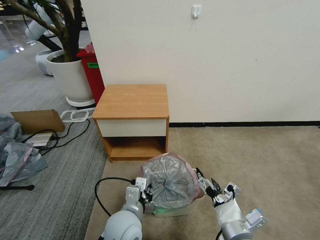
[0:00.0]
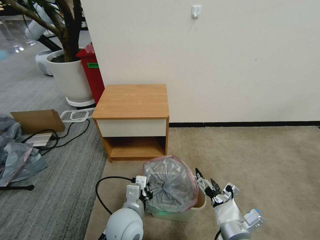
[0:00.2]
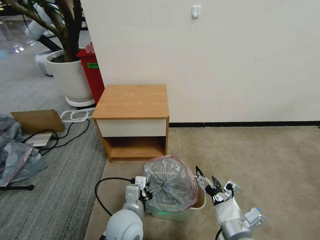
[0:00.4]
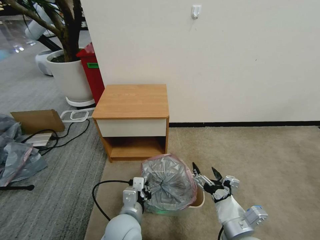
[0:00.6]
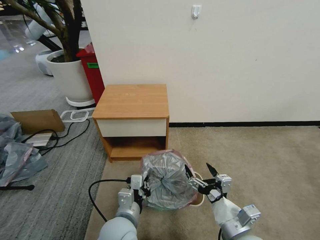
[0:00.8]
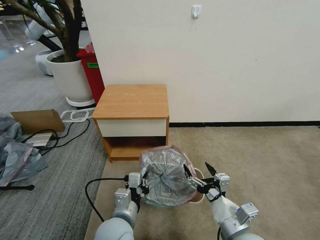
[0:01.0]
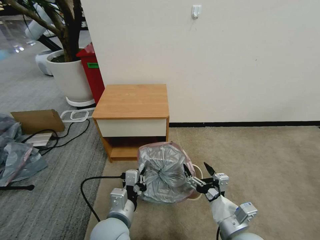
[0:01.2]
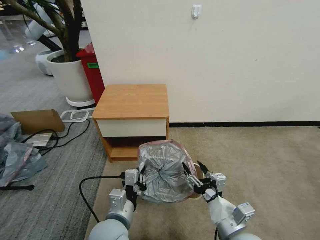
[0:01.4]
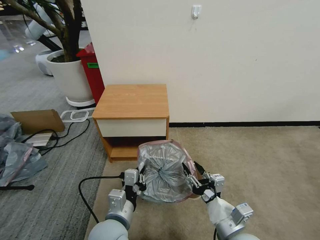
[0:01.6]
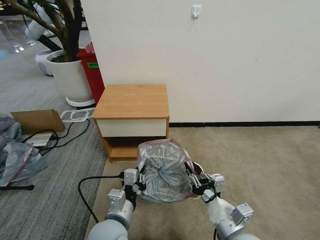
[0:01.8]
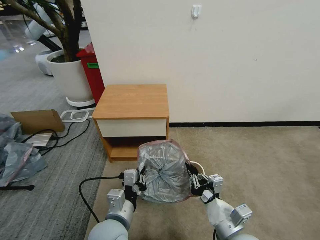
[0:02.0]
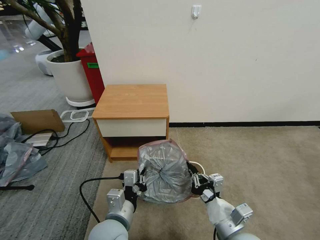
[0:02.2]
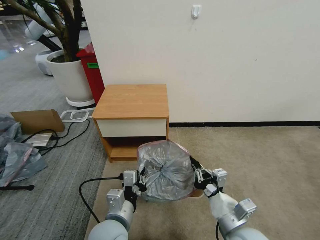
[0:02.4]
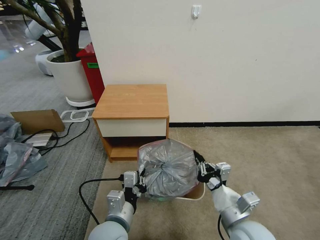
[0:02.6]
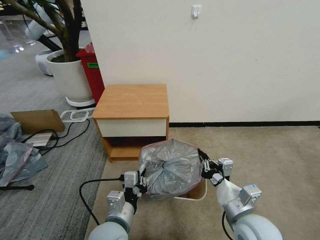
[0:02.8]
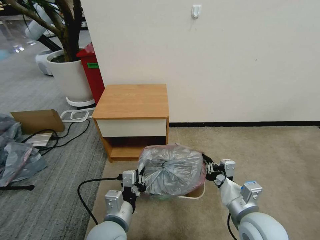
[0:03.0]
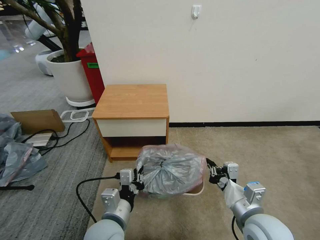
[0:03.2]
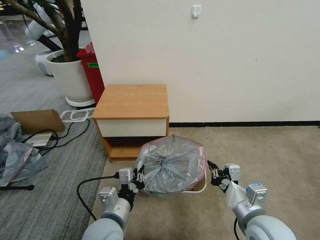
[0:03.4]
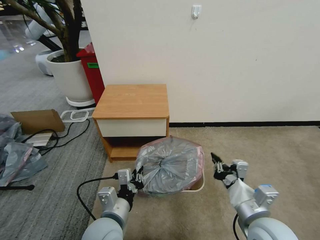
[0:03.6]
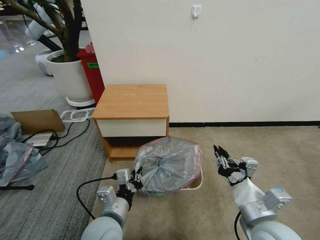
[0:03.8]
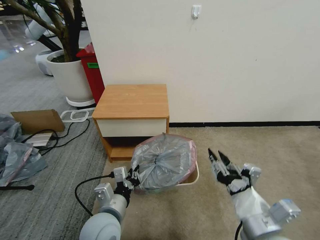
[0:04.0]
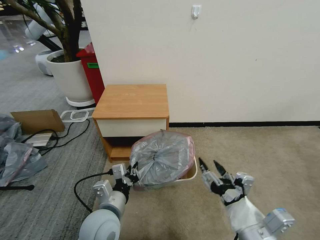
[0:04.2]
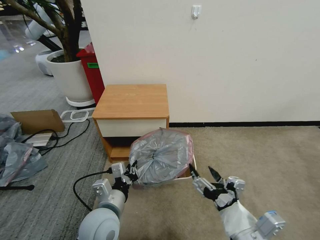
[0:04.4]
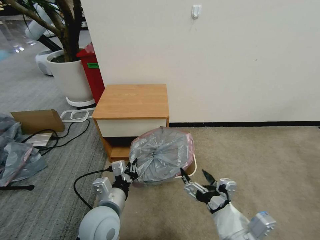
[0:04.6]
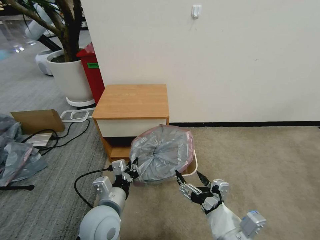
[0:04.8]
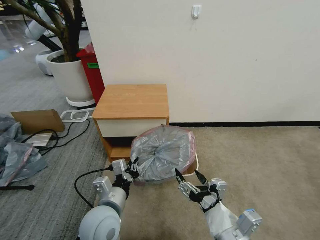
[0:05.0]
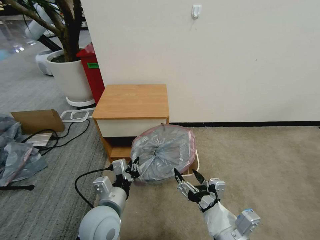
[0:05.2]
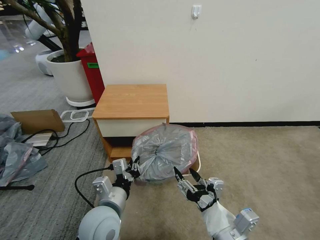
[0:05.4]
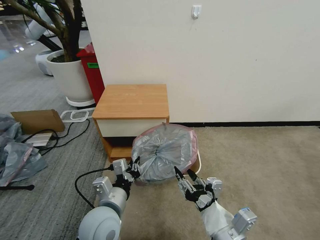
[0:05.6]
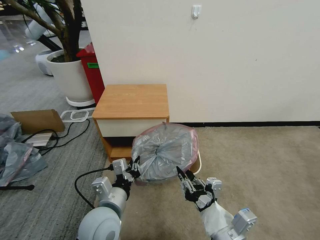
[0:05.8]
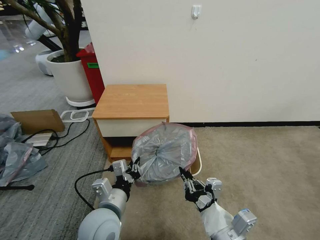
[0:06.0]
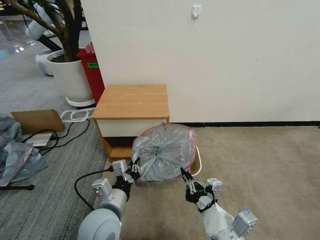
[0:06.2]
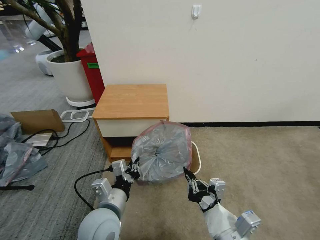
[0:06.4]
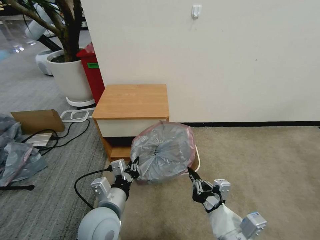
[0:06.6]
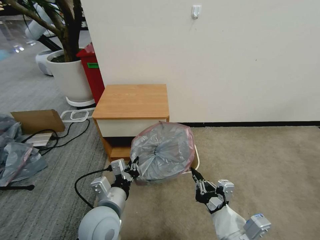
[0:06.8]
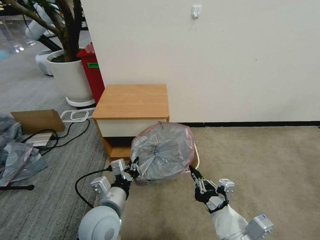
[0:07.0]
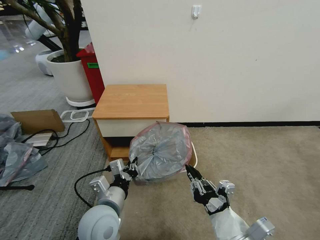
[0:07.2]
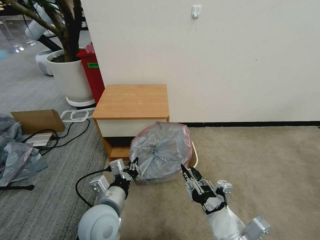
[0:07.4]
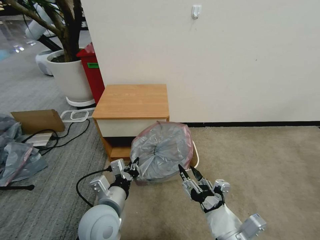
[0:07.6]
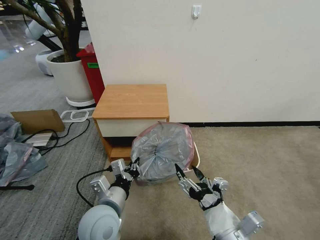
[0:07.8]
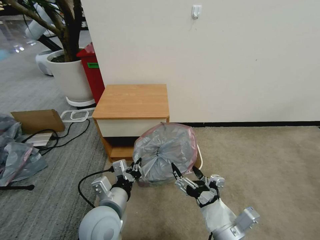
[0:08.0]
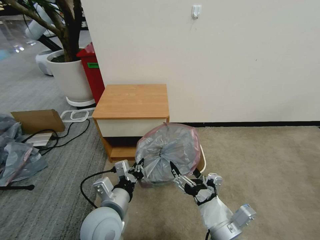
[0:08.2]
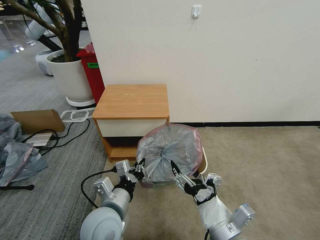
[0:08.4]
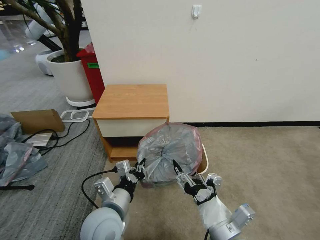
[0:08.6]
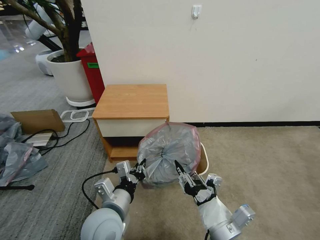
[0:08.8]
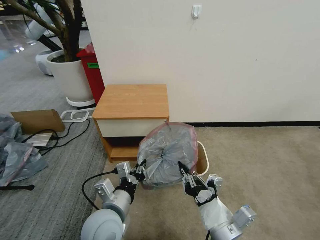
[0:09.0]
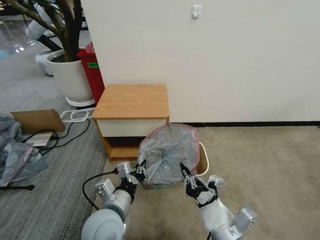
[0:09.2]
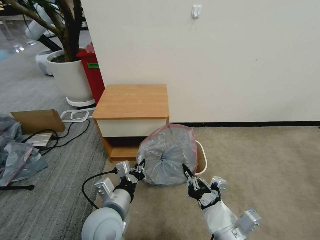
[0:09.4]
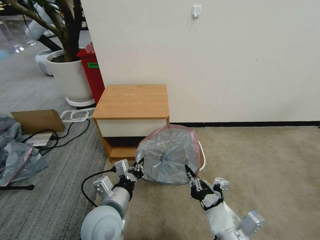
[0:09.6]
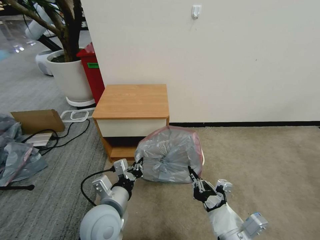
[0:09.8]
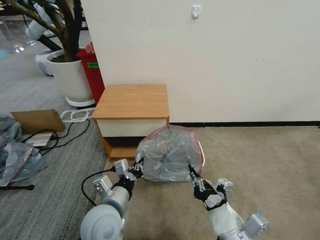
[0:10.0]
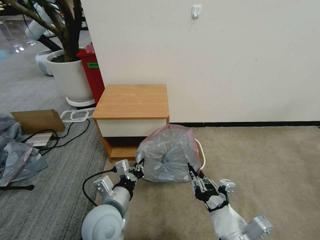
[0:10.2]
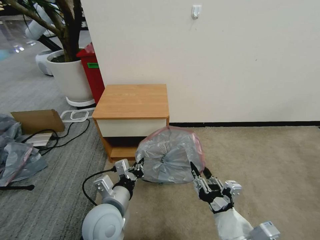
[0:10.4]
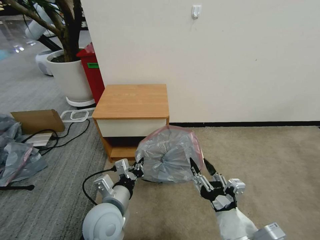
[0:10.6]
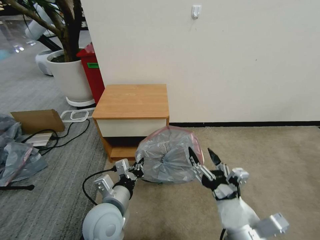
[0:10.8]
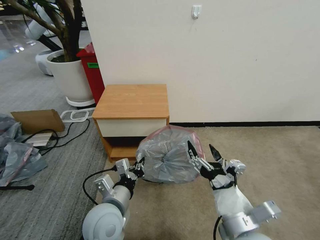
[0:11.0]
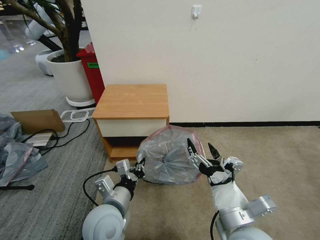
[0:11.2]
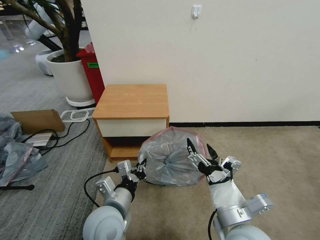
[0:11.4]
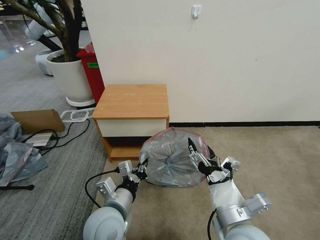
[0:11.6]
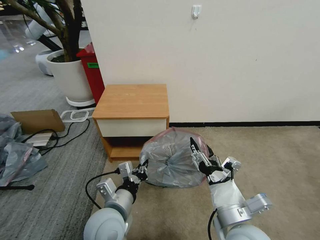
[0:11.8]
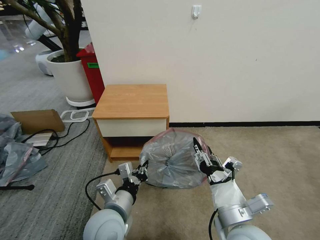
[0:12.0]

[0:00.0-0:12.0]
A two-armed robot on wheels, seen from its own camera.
Task of the whole recording: Pick up the garbage bag from the table and place it over the trash can.
0:00.0 to 0:01.6: The right gripper closes its fingers.
0:01.6 to 0:03.0: The right gripper changes place by about 5 cm, and closes up.
0:03.0 to 0:04.4: The right gripper goes about 10 cm backward, and opens its fingers.
0:04.4 to 0:06.0: The right gripper closes up.
0:06.0 to 0:07.6: The right gripper opens its fingers.
0:07.6 to 0:09.0: The right gripper closes.
0:09.0 to 0:10.4: The grippers make only small movements.
0:10.4 to 0:12.0: The right gripper travels forward by about 5 cm, and opens, then closes again.

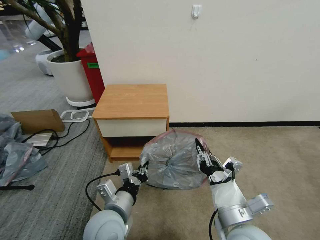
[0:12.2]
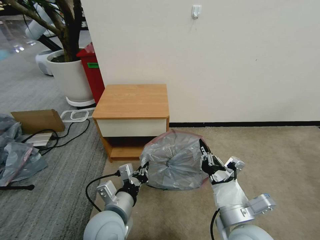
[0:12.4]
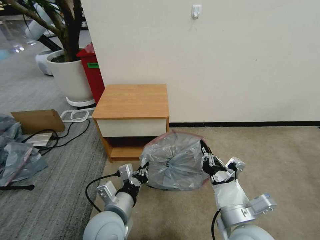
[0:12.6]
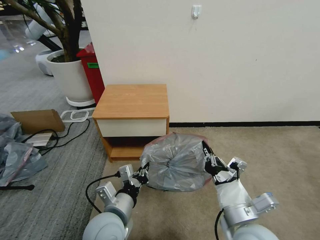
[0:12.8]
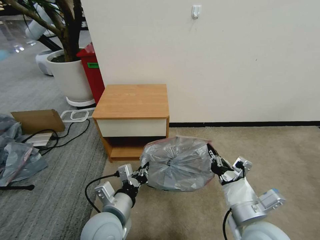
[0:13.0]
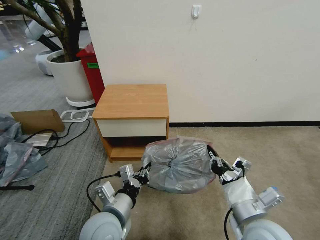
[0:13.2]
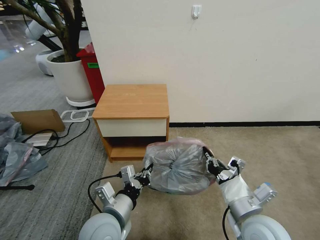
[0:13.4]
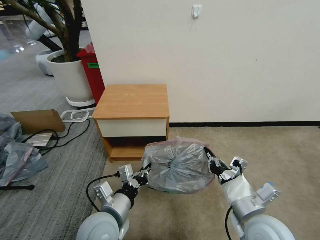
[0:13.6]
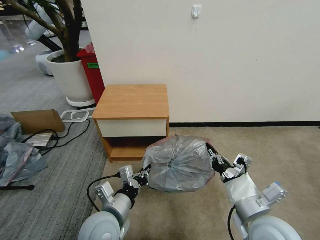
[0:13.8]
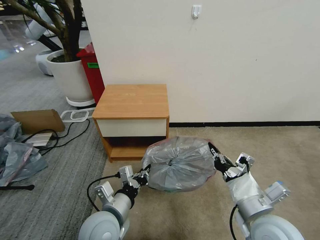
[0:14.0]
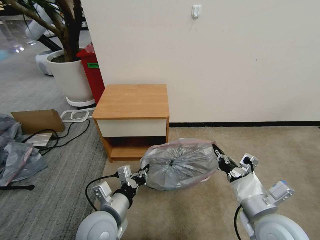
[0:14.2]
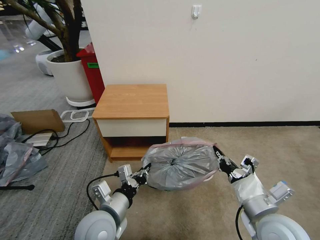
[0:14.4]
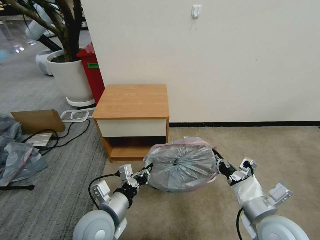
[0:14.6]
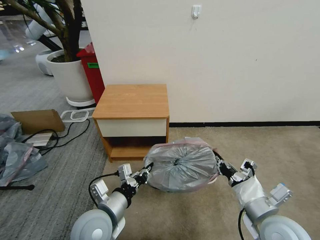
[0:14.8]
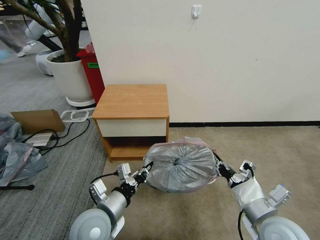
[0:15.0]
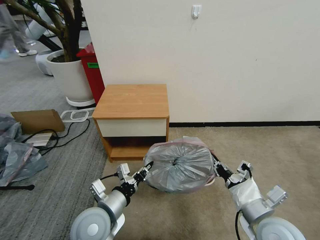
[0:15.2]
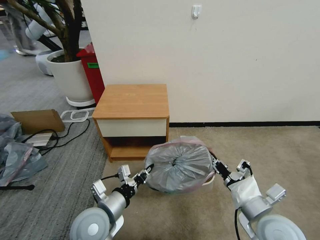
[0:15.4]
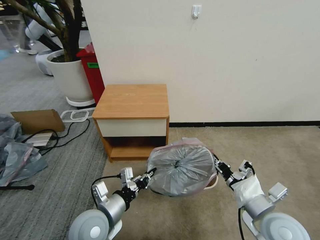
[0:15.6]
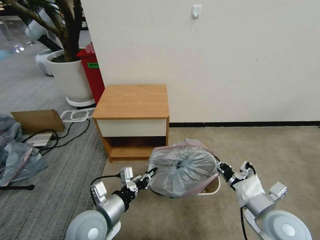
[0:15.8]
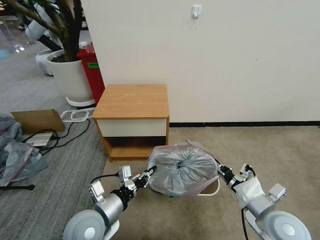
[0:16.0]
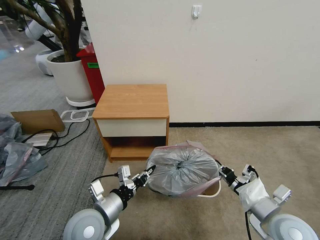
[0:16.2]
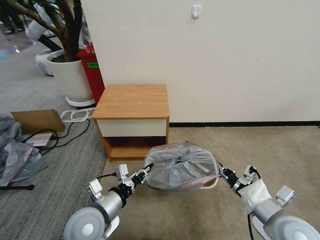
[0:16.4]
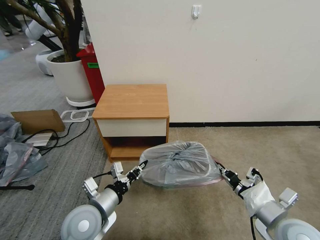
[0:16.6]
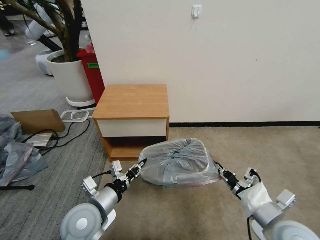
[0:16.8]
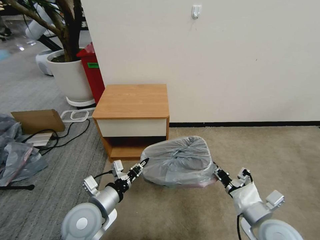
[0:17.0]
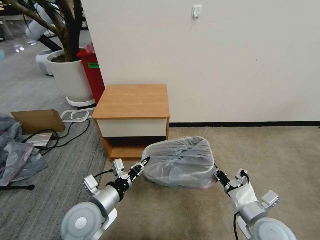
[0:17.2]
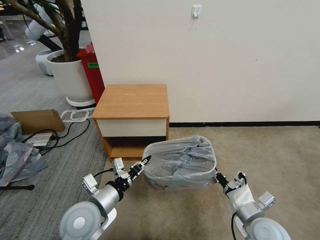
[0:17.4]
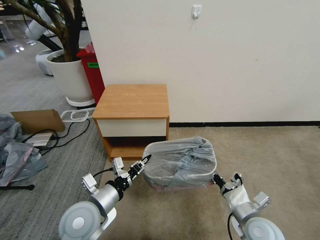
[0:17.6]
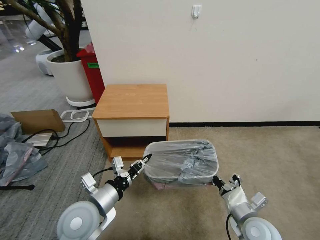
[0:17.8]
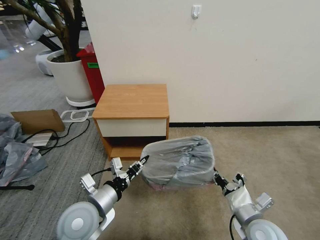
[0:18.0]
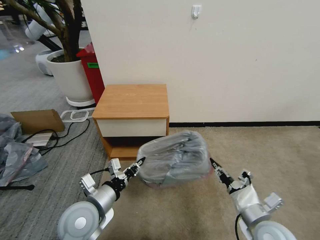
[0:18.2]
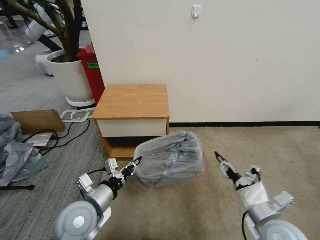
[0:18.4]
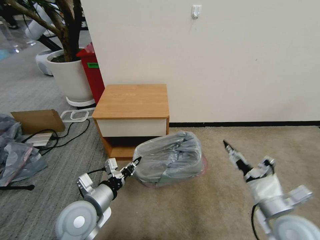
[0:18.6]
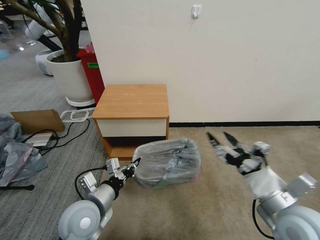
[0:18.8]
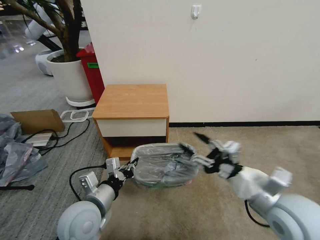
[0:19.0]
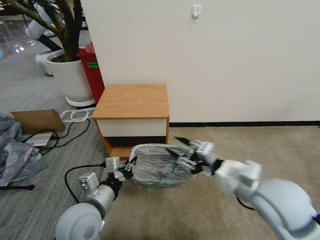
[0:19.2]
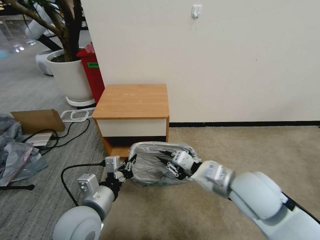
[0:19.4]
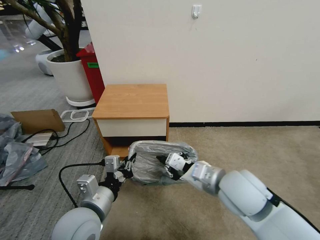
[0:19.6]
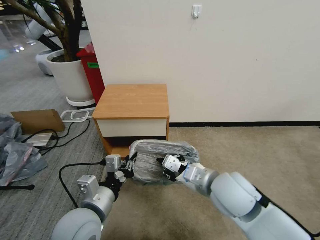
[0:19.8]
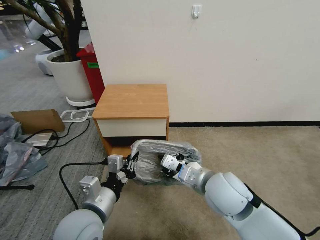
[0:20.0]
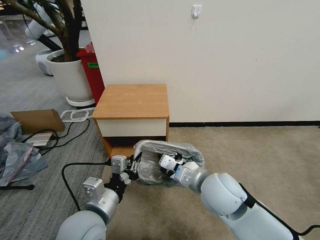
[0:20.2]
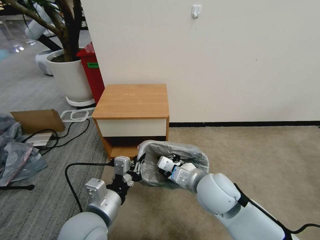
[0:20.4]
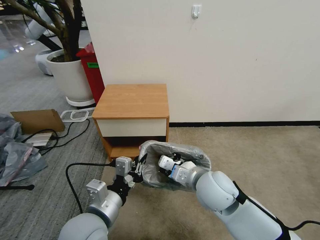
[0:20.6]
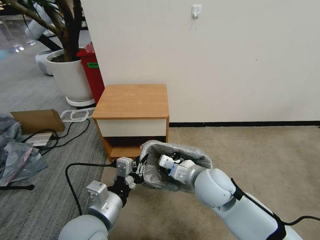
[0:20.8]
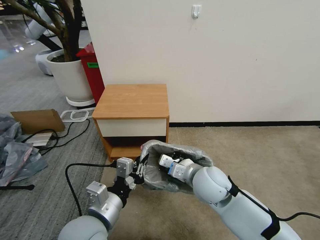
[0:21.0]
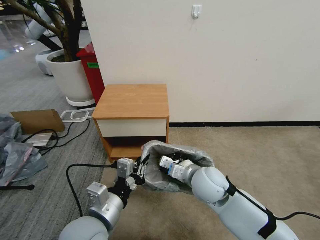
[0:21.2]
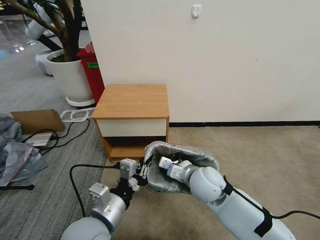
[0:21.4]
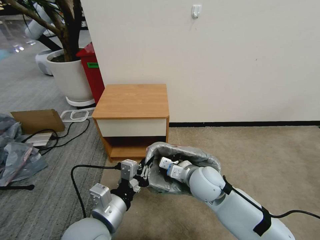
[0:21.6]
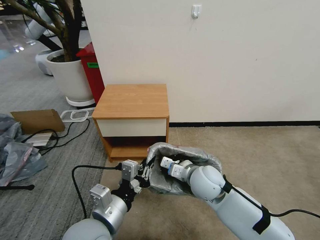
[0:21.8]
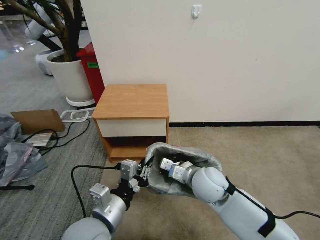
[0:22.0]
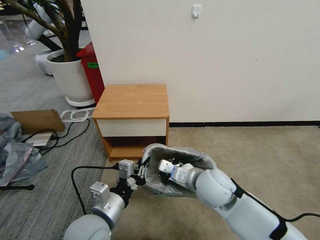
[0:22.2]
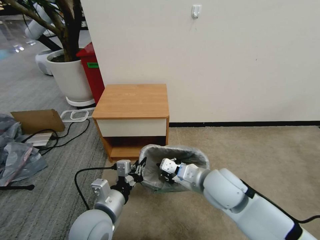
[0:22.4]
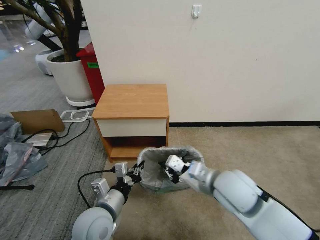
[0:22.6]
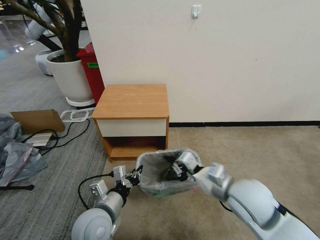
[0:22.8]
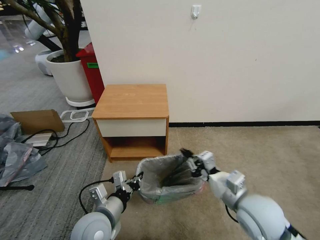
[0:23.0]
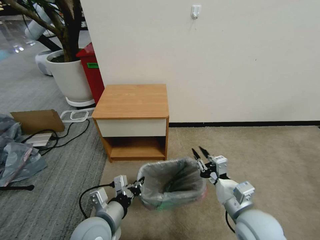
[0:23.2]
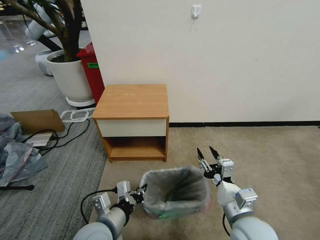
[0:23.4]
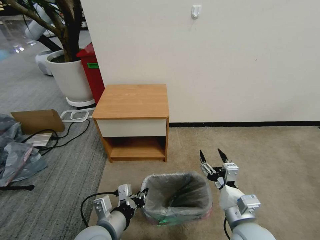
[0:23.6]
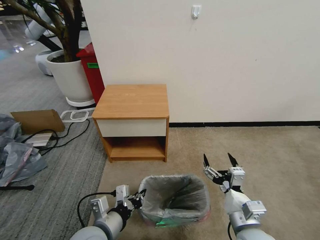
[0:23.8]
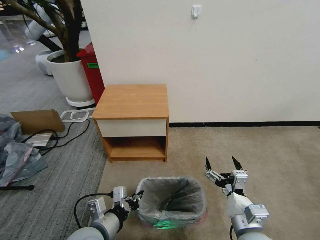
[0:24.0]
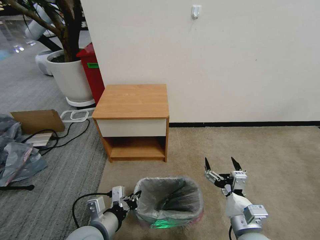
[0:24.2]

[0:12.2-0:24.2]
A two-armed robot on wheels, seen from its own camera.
Task of the whole recording: Pick up the garbage bag from the table and place it over the trash can.
0:12.2 to 0:13.8: The right gripper moves to the right, some 5 cm.
0:13.8 to 0:15.2: There are only small adjustments of the grippers.
0:15.2 to 0:16.6: There are only small adjustments of the grippers.
0:16.6 to 0:18.2: The right gripper travels downward by some 5 cm.
0:18.2 to 0:19.8: The left gripper changes place by approximately 5 cm. The right gripper shifts about 20 cm to the left, upward and forward, and opens, then closes once more.
0:19.8 to 0:21.2: The right gripper shifts roughly 5 cm downward.
0:21.2 to 0:22.6: The right gripper is displaced upward by about 5 cm; the left gripper goes about 5 cm downward.
0:22.6 to 0:24.2: The right gripper shifts some 15 cm backward and downward, and opens its fingers.
